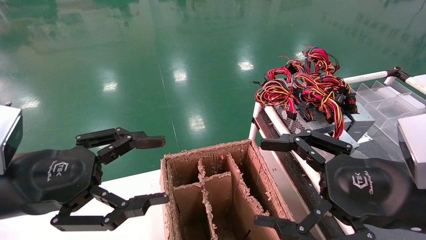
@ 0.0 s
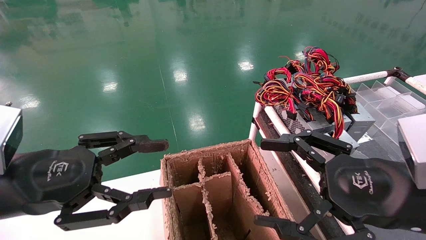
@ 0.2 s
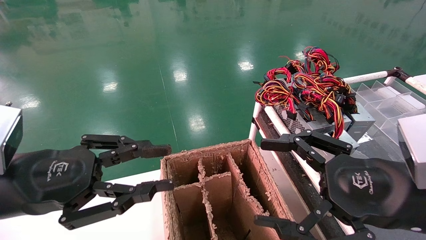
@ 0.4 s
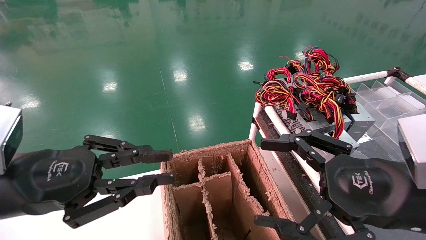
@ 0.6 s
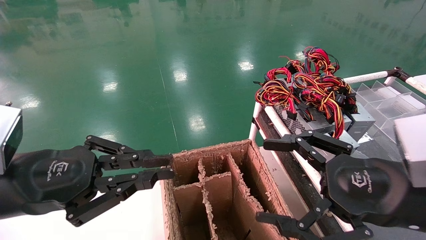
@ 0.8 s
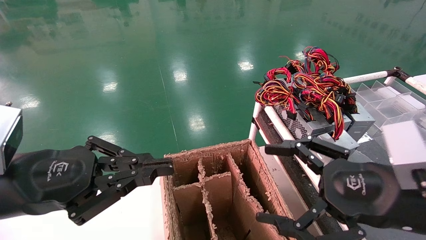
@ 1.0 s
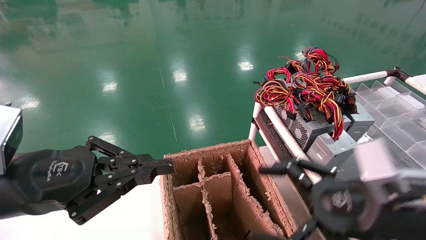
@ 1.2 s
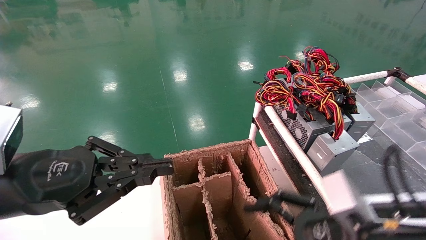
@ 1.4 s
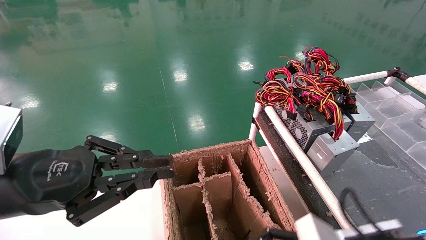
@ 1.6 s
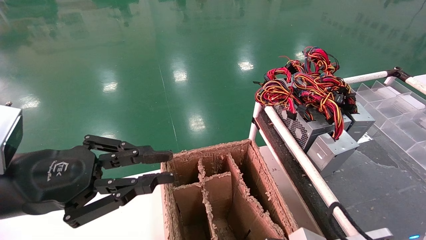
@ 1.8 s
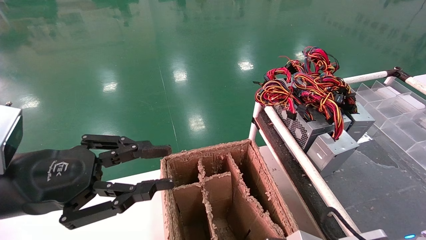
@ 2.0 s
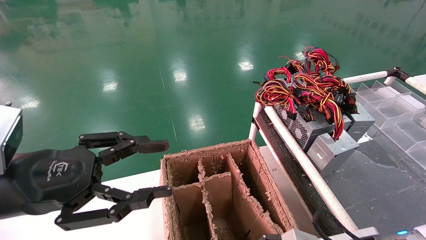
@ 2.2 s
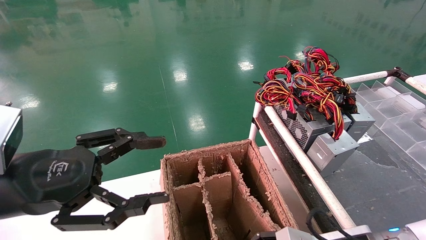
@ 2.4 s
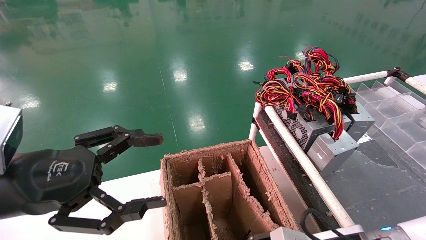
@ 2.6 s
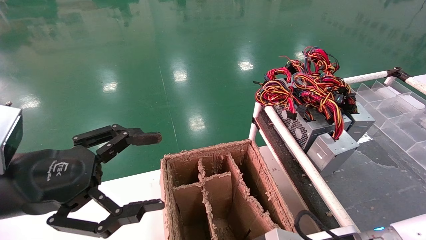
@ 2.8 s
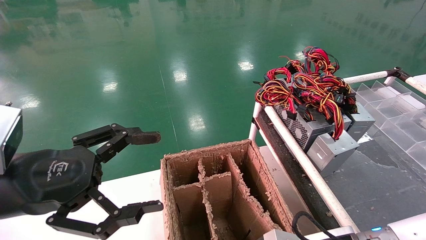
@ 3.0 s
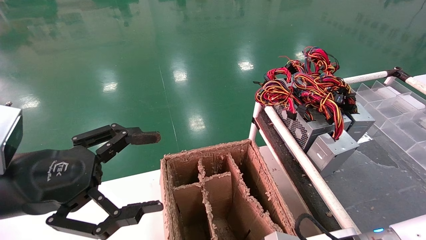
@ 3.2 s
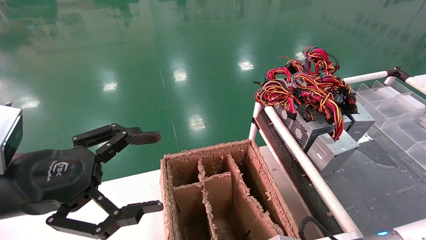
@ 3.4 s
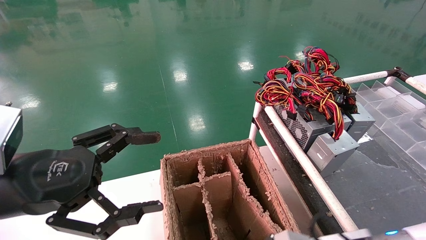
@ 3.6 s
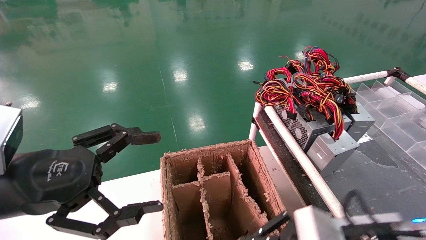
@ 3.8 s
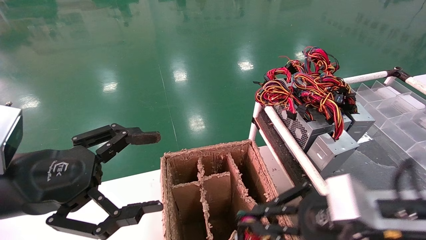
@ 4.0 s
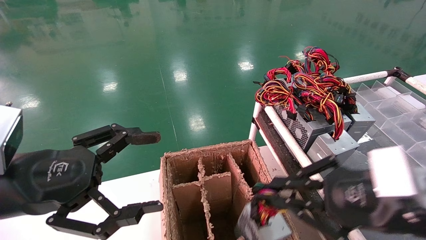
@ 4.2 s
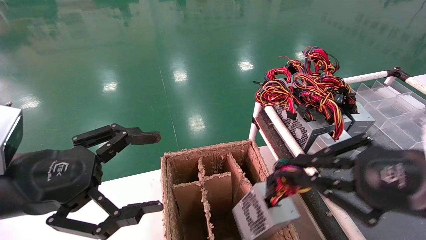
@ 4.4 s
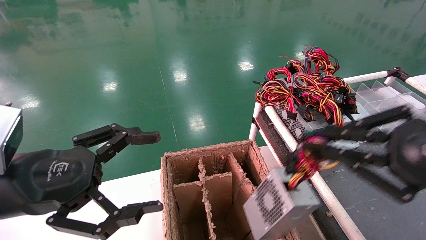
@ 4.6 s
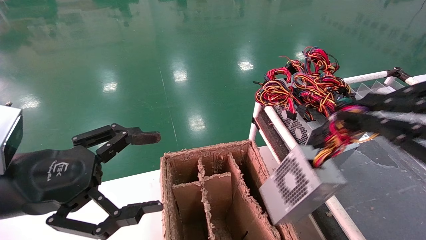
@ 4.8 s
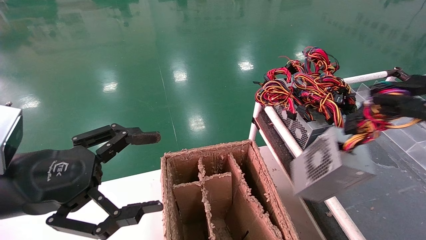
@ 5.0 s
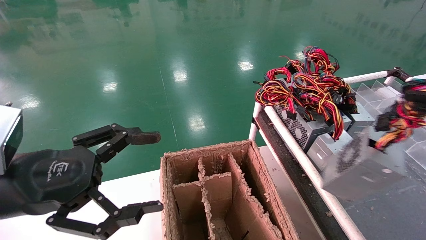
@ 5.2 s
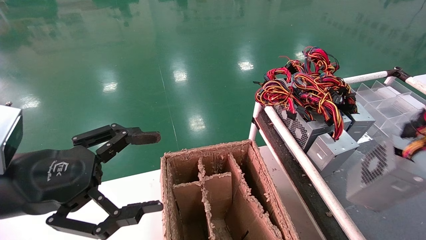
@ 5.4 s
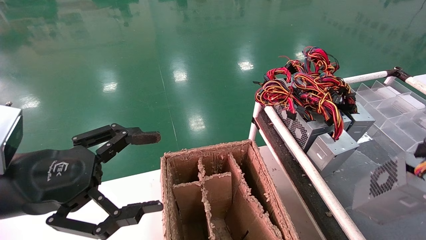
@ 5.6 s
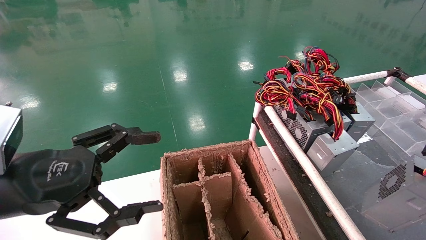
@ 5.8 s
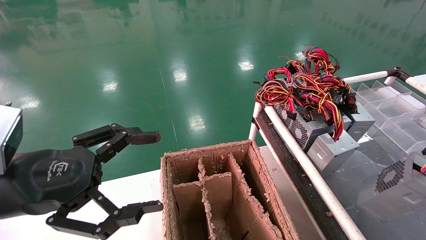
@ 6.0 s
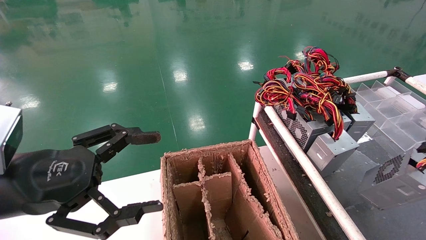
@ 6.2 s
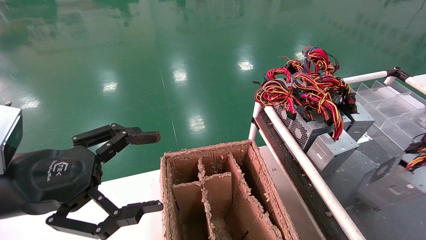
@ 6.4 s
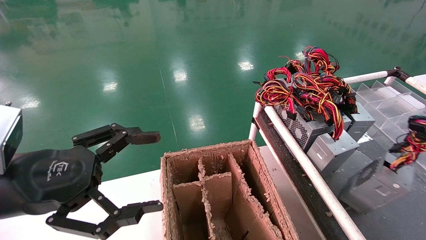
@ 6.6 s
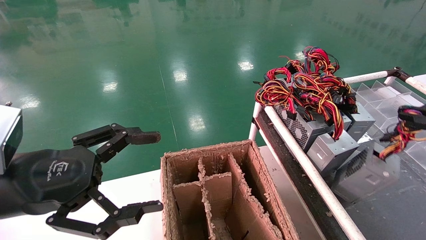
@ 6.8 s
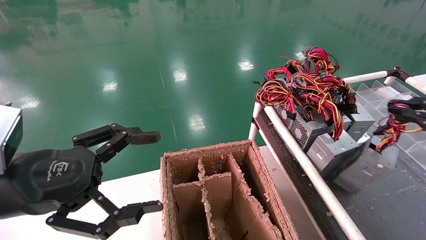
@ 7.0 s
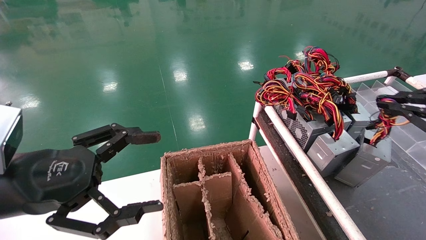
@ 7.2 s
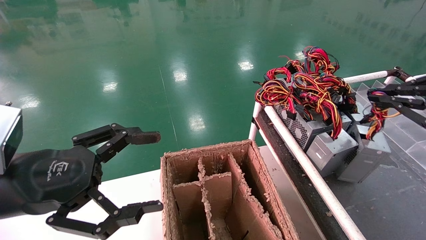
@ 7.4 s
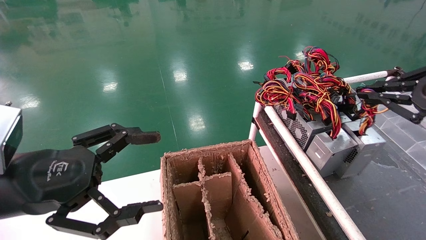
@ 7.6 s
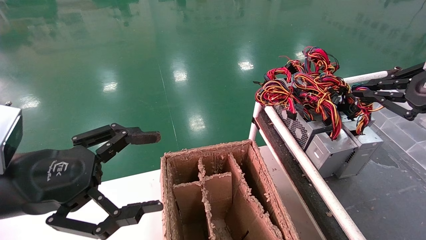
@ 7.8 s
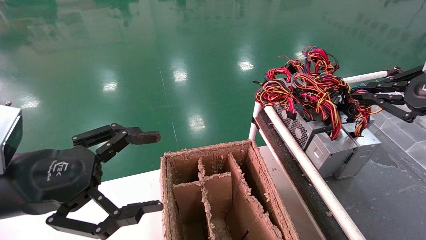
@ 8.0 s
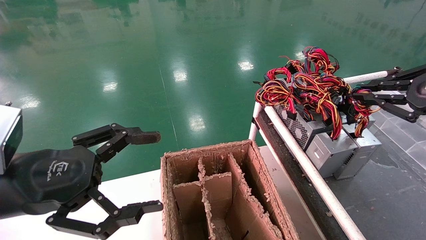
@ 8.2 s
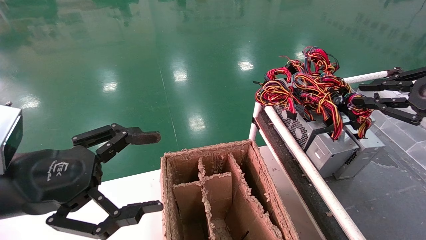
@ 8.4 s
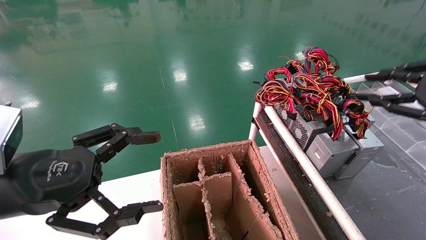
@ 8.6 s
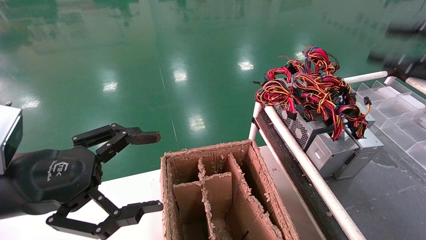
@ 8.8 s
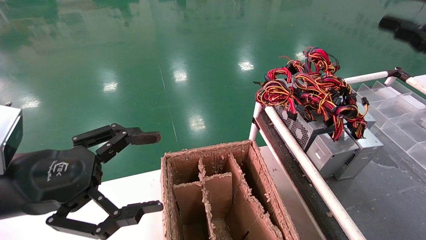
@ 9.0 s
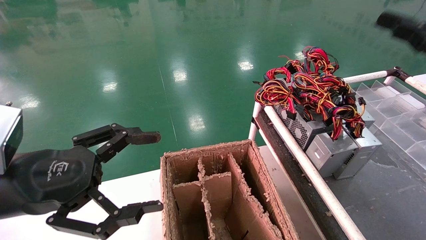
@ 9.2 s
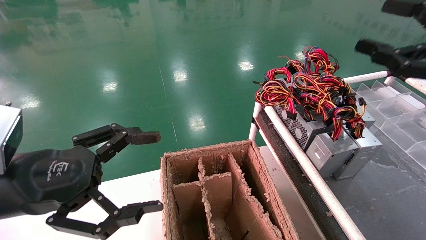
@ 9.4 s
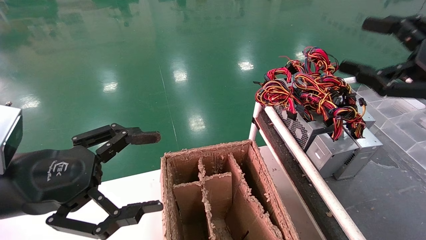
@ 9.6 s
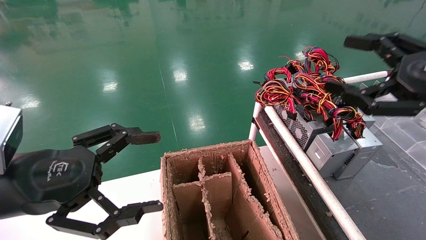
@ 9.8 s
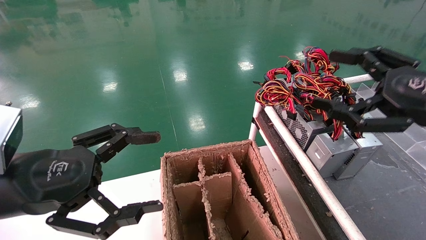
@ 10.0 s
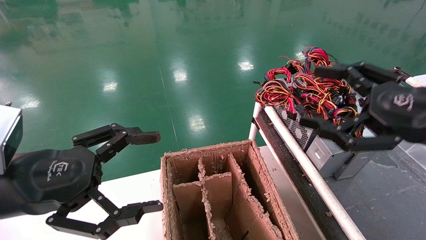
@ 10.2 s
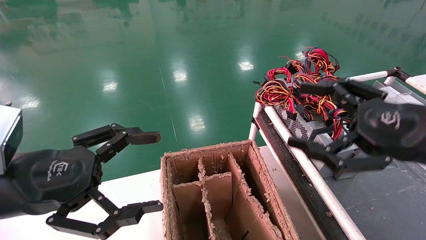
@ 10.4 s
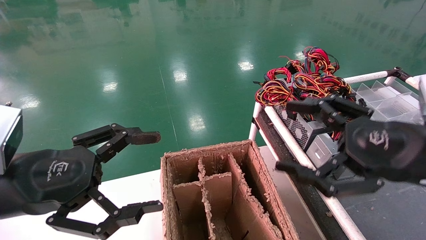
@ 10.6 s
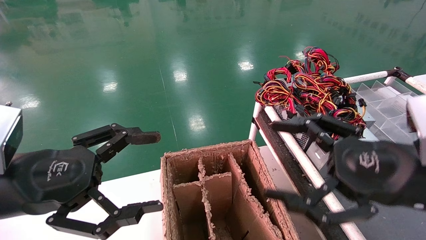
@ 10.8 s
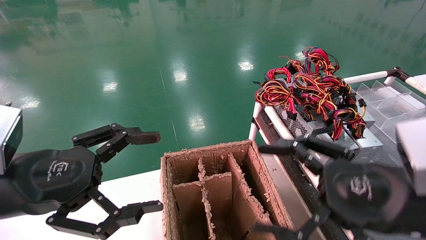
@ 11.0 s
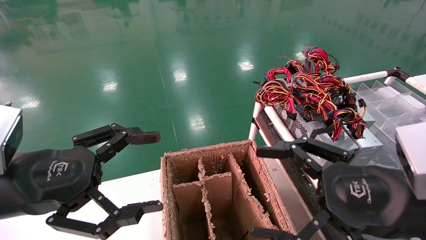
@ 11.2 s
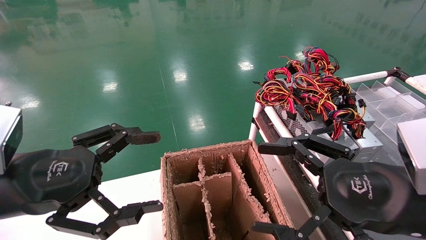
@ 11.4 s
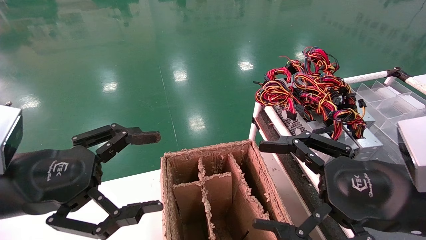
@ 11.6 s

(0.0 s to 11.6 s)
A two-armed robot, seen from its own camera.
Step, 1.4 s - 3.4 s: Grab and lift the power supply from the large box.
Step, 3.6 s - 8.2 s: Place the power supply on the operating table.
0.0 s - 1.4 s: The left gripper closes its fingers. Meanwhile the right gripper travels downward by approximately 5 cm.
1.4 s - 2.8 s: The right gripper heads downward, covering about 5 cm, and closes up; the left gripper opens.
2.8 s - 4.4 s: The right gripper goes some 20 cm upward and to the right, and closes.
4.4 s - 5.8 s: The right gripper shifts roughly 20 cm to the right and backward.
5.8 s - 7.2 s: The right gripper heads forward, covering approximately 15 cm.
7.2 s - 8.8 s: The right gripper heads upward, covering about 5 cm, and opens.
8.8 s - 10.2 s: The right gripper goes some 15 cm to the left and downward, and opens.
10.2 s - 11.6 s: The right gripper shifts some 10 cm to the left and downward.
